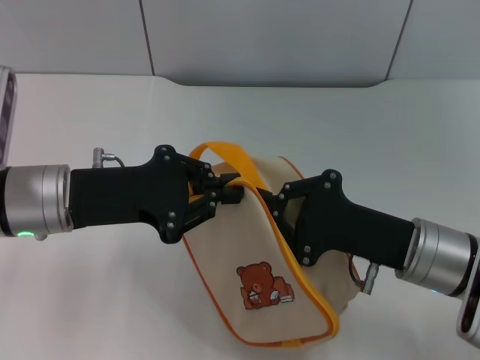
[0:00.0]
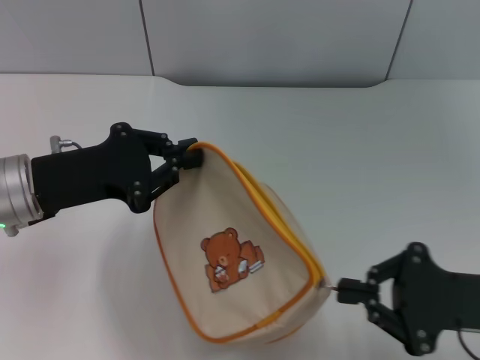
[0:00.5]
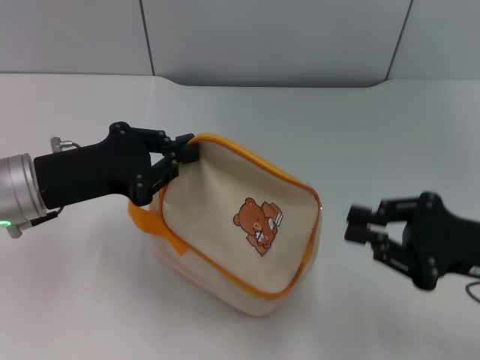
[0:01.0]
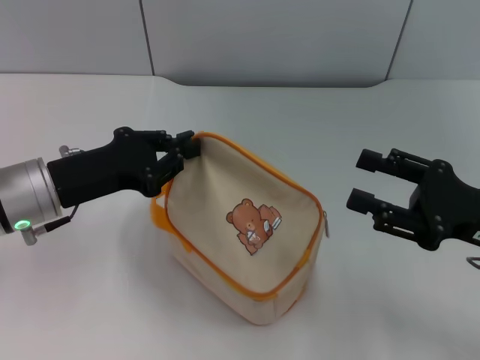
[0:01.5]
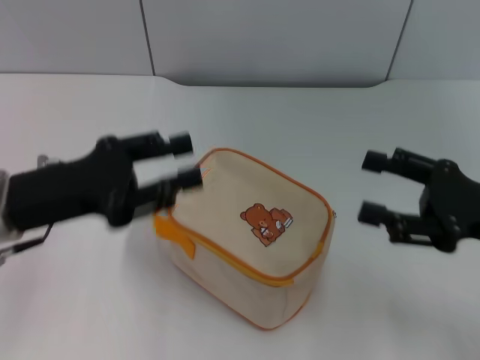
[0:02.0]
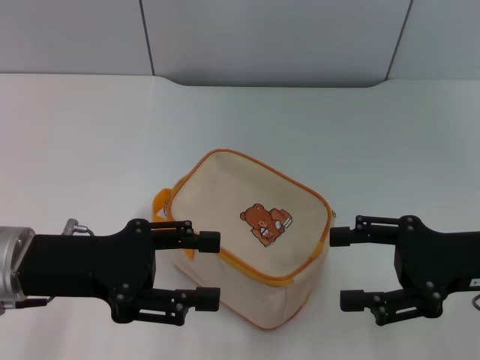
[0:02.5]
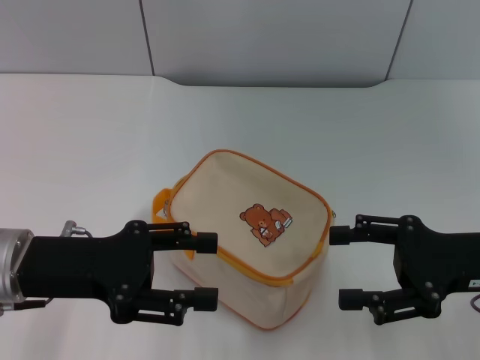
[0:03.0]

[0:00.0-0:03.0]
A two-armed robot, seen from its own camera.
Step, 0:01.5 to 0:02.0: Place the bag on the table with left gripper.
0:00.0 to 0:01.5: The right gripper travels to the right by about 10 cm, and opens up.
0:01.5 to 0:03.0: The left gripper is displaced backward by roughly 5 cm, and opens up.
